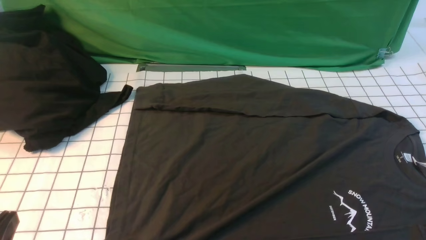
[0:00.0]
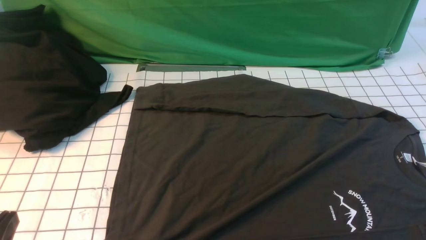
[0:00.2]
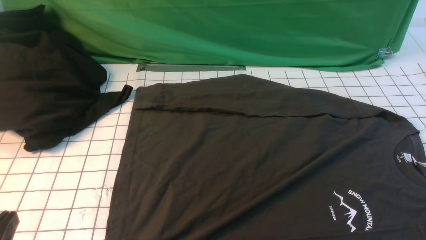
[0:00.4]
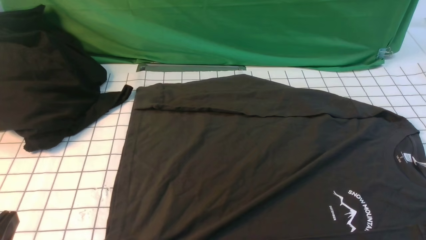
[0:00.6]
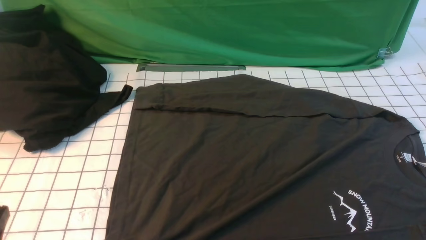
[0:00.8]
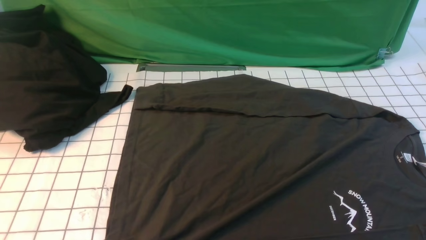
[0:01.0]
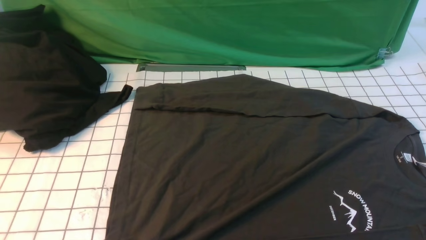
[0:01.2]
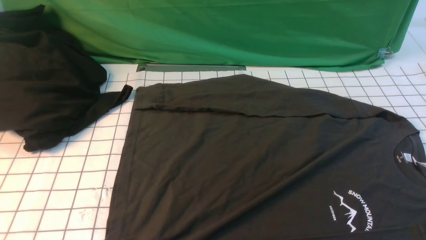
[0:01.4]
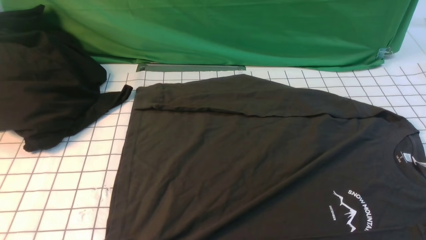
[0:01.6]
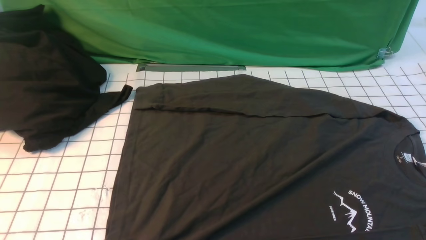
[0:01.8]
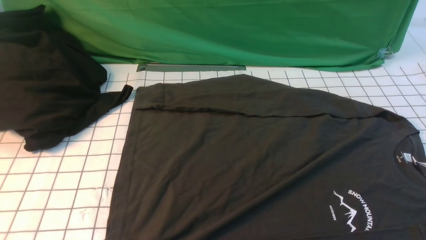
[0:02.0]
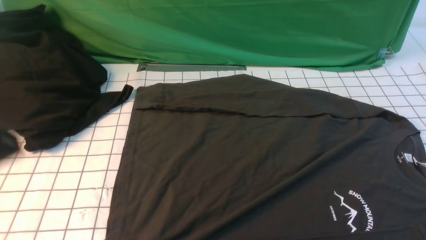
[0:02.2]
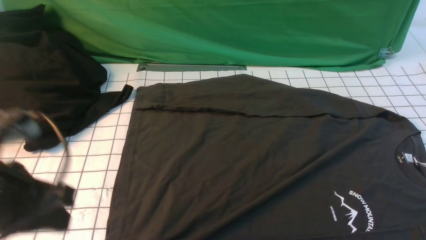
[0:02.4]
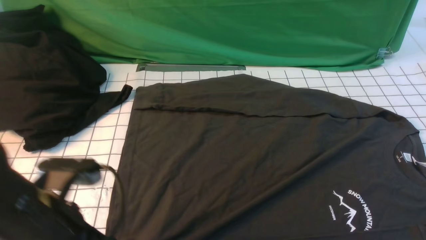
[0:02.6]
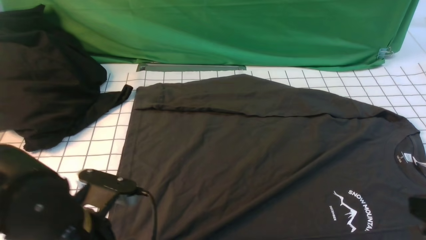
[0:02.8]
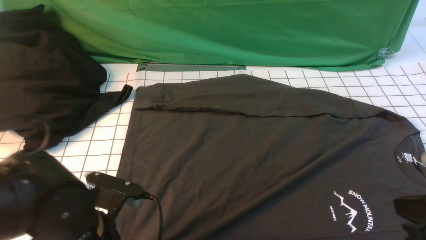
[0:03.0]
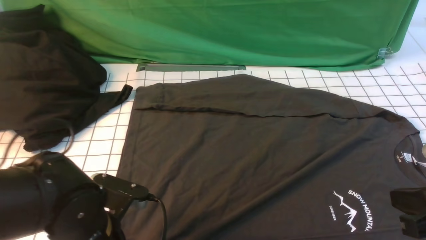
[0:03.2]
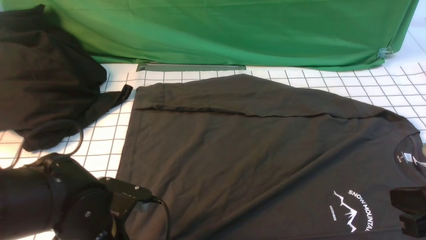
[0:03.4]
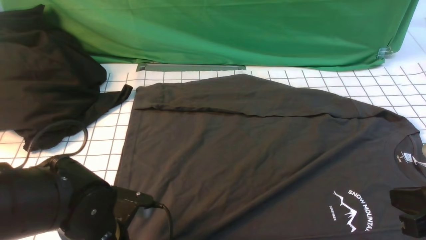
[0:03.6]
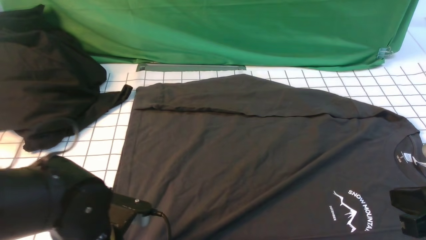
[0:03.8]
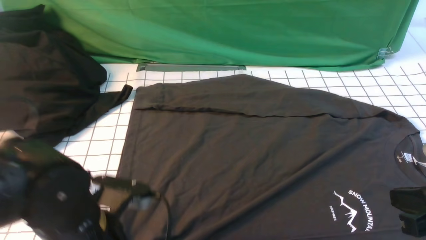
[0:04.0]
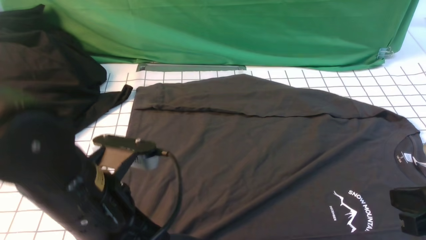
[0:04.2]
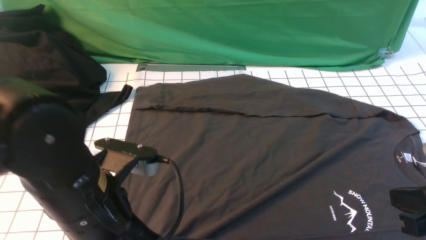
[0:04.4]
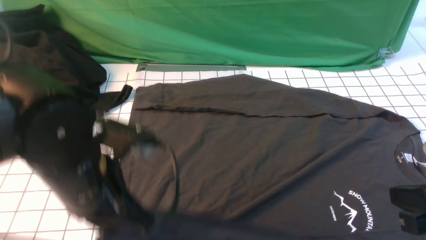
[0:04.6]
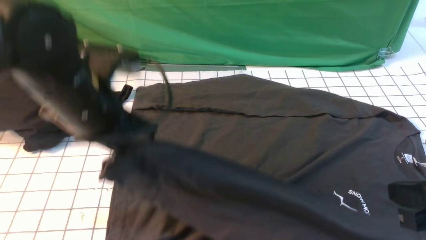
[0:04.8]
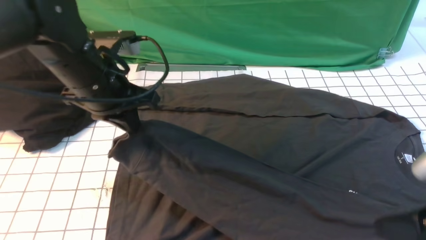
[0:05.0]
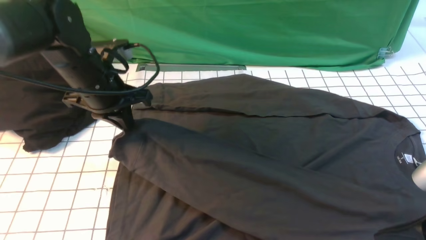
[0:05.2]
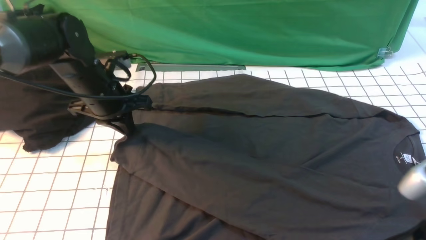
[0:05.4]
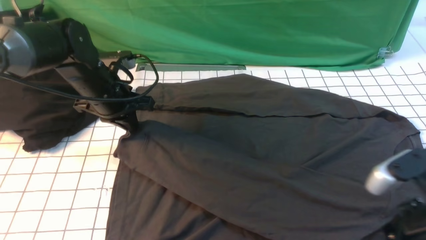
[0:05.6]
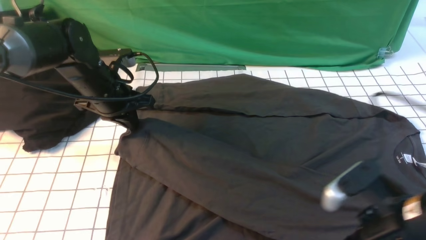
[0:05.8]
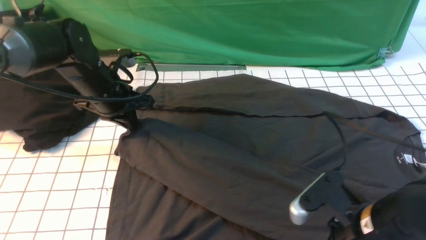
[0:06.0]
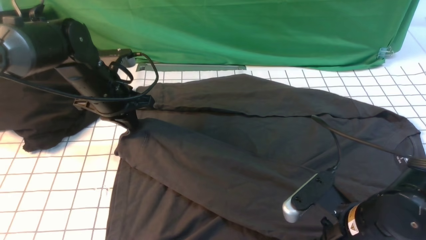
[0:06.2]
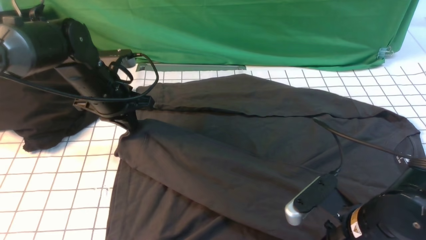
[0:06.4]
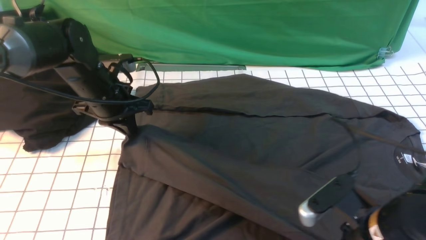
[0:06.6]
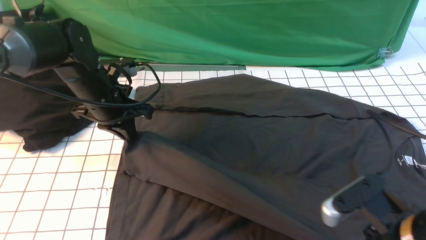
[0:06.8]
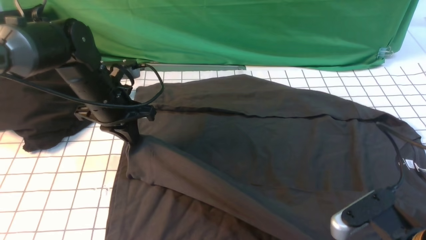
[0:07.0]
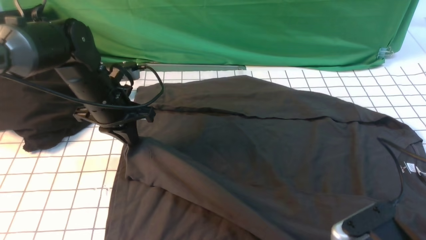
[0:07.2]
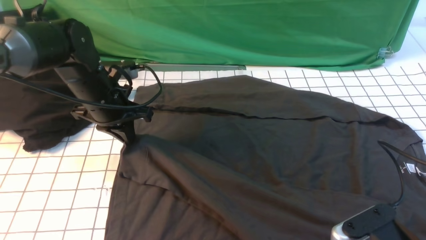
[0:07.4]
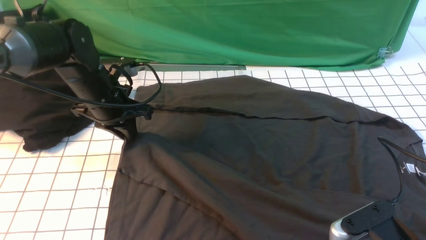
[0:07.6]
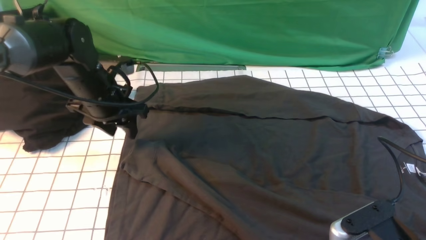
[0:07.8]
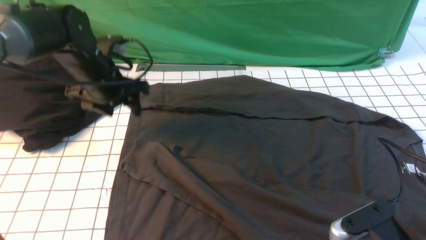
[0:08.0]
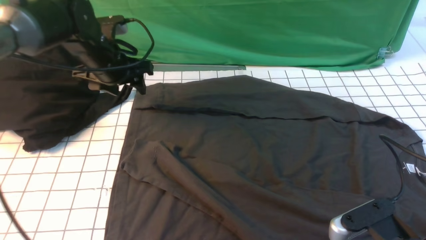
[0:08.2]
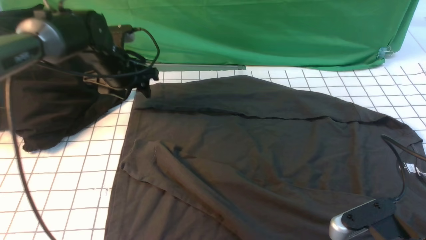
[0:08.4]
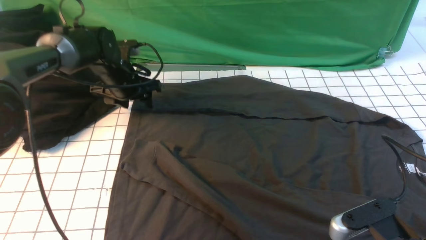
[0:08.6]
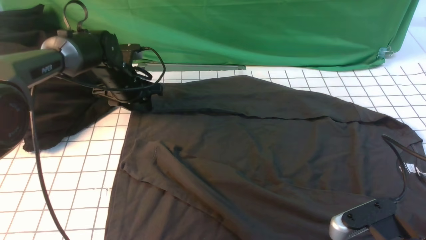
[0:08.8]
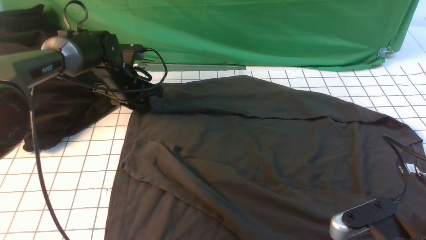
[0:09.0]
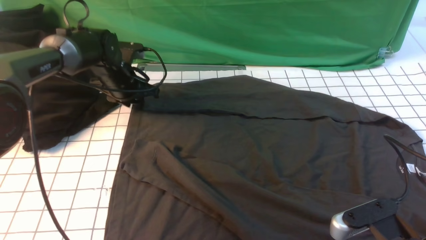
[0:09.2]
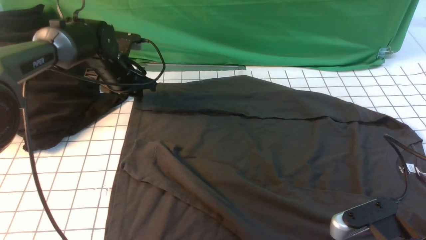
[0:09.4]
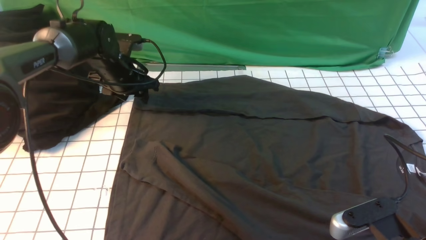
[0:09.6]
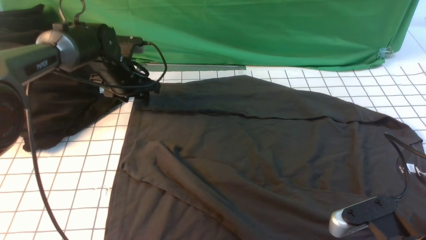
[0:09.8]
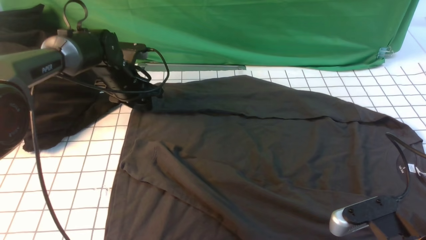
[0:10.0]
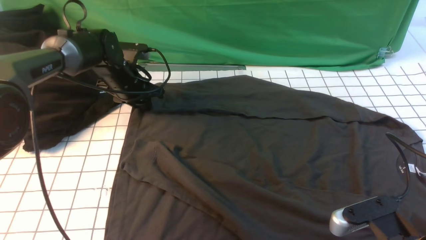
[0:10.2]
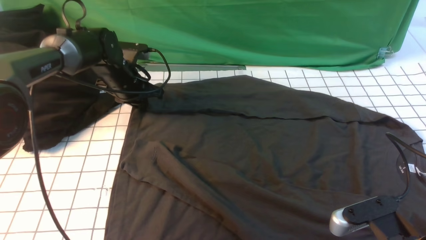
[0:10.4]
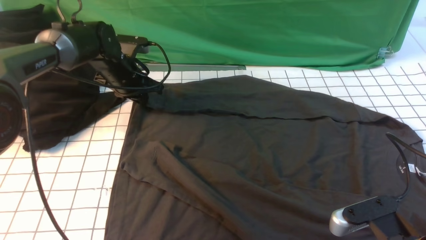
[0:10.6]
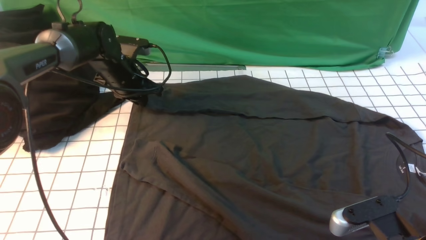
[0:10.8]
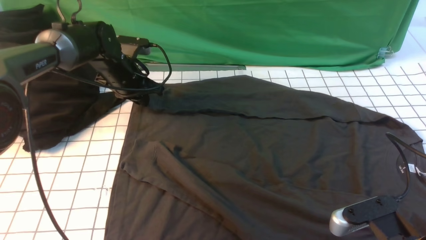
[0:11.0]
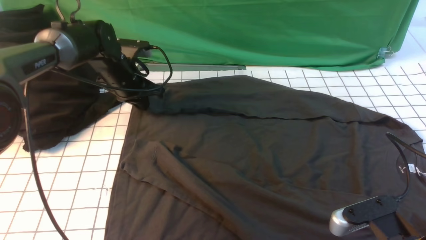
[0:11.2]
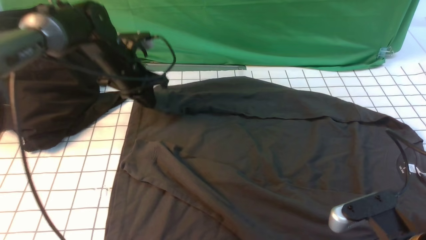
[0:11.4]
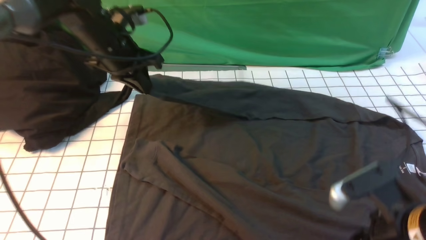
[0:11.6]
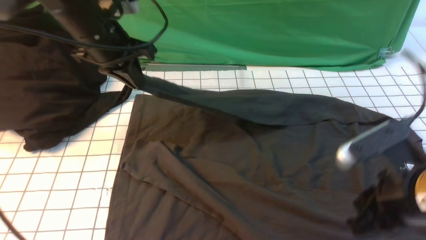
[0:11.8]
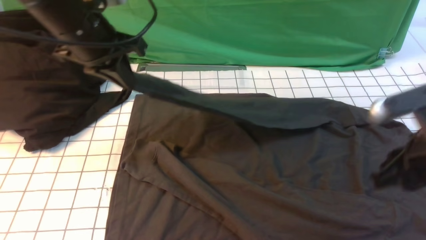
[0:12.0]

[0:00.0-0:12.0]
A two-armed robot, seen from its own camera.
Step, 0:00.0 to 0:04.0: use the left arm to clamp the cuff closest to it.
Step, 0:04.2 to 0:07.8: use the left arm to drag and place the cuff at the centered position on the left edge of the fabric.
Step, 0:08.0 to 0:11.2: use the left arm to clamp the cuff farthest from it.
0:01.6 to 0:03.0: The left gripper moves to the right, forward and downward, roughly 20 cm. Meanwhile the right gripper goes about 10 cm upward and forward, and closes up.
0:03.0 to 0:04.4: The left gripper goes some 10 cm upward.
0:04.4 to 0:06.0: The right gripper is displaced to the left and downward by roughly 10 cm, and opens; the left gripper moves forward, some 20 cm.
0:06.0 to 0:07.6: The right gripper moves backward, about 5 cm, and closes, then reopens, while the left gripper opens up.
0:07.6 to 0:09.0: The left gripper travels forward by some 10 cm.
0:09.0 to 0:10.4: The grippers stay close to where they were, moving slightly.
0:10.4 to 0:12.0: The right gripper travels forward and upward by roughly 10 cm. The left gripper shifts some 20 cm upward and backward.

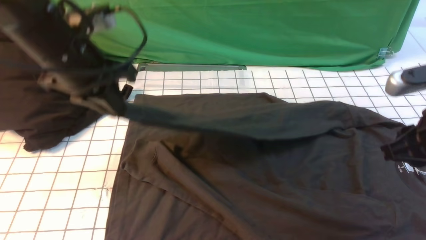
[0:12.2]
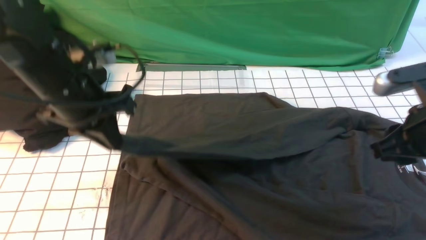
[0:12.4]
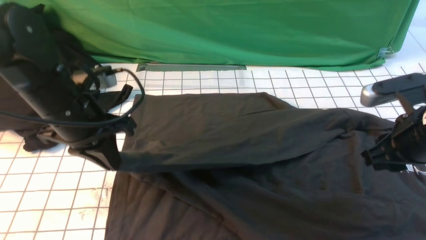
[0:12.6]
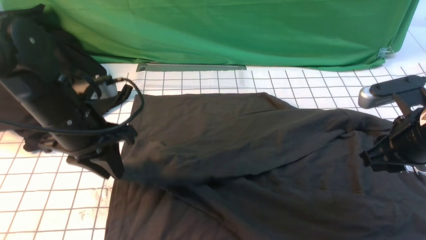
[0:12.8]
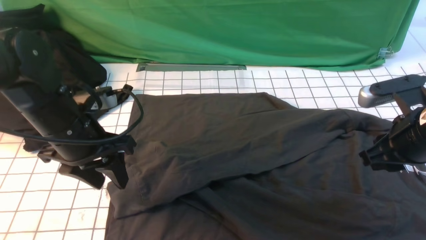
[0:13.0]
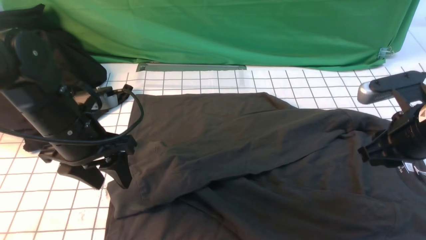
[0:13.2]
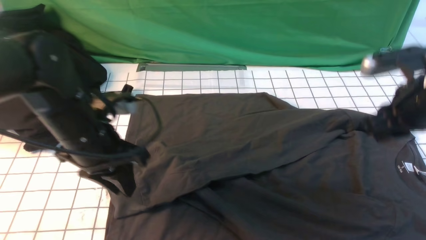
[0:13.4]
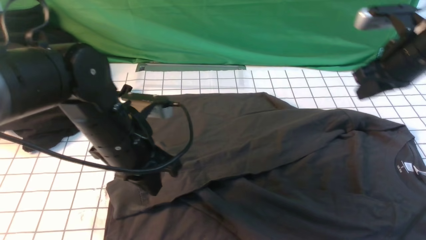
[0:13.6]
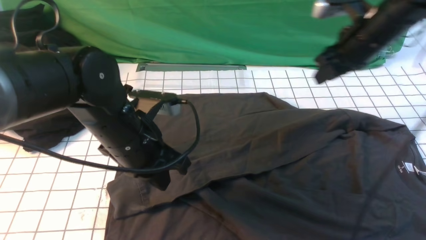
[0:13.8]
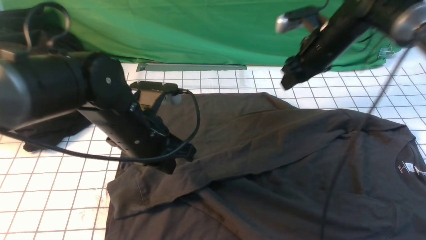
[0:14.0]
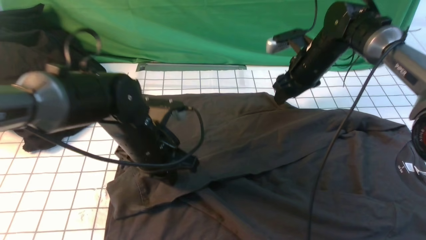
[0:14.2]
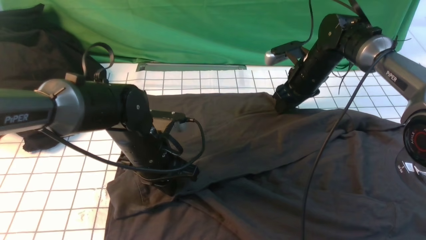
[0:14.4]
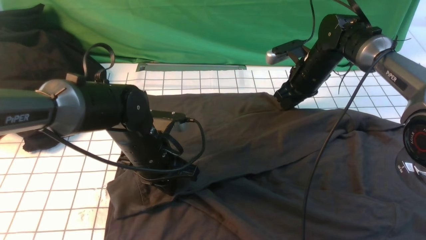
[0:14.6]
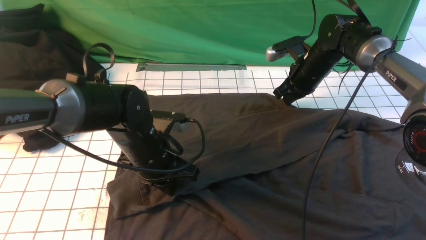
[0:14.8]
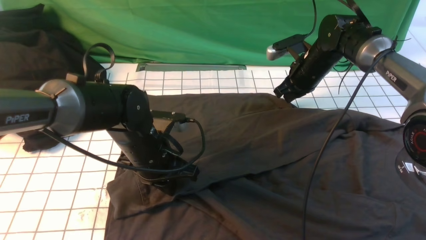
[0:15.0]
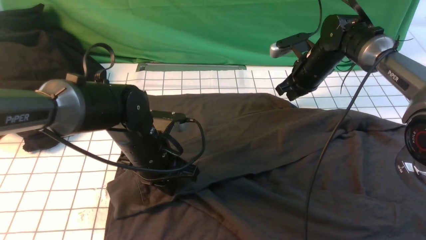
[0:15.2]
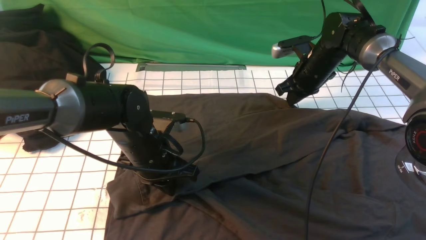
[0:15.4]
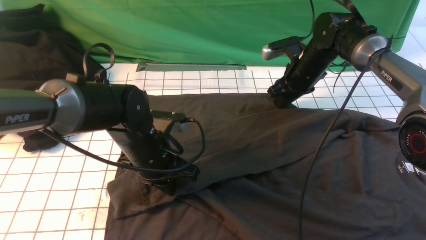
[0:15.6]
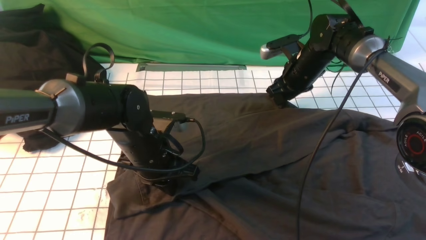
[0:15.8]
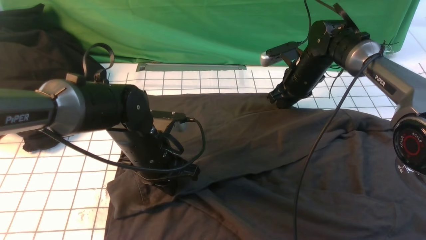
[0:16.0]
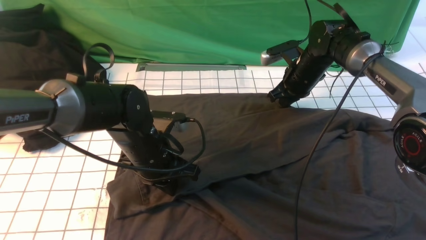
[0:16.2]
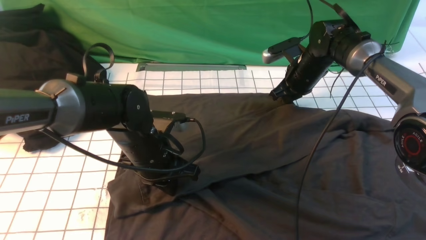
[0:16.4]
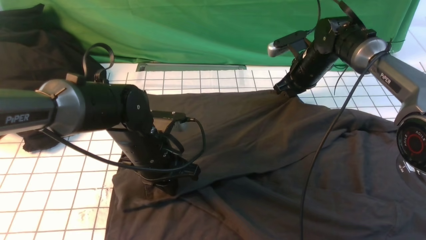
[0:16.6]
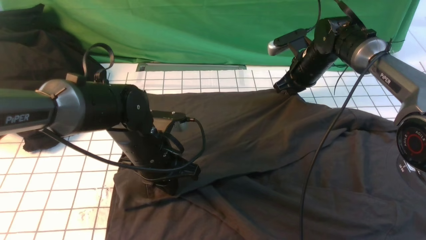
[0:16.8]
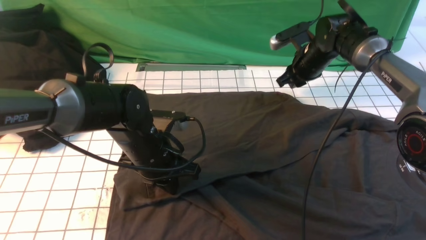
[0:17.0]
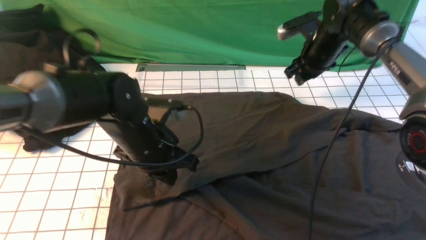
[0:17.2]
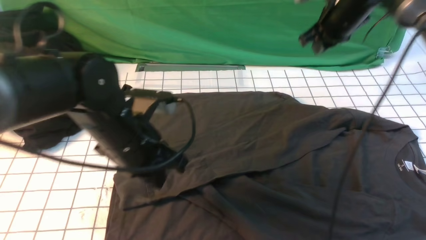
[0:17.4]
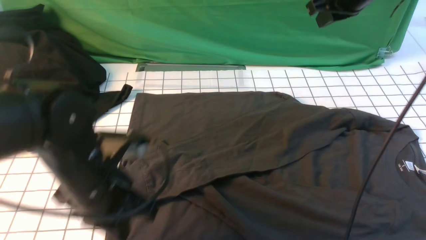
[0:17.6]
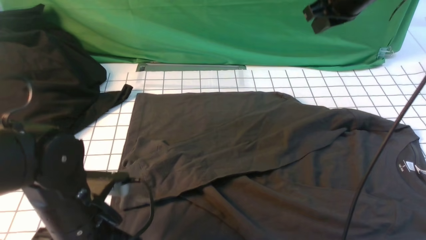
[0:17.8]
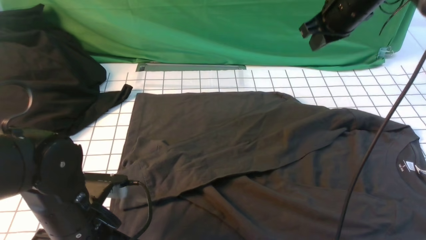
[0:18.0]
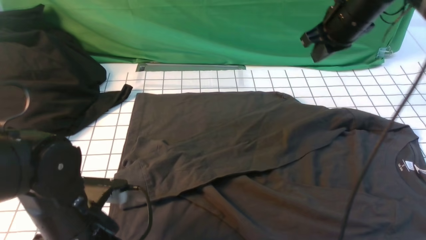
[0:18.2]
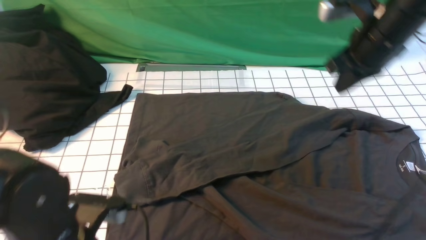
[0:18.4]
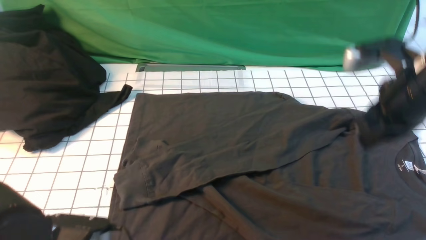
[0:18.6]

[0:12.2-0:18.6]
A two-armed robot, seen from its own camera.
0:12.2 to 0:13.8: The left gripper moves downward and to the right, roughly 10 cm, and opens, then closes once more. The right gripper travels forward by roughly 20 cm.
0:13.8 to 0:15.4: The right gripper shifts some 15 cm downward and forward. Meanwhile the left gripper travels downward by some 5 cm.
0:15.4 to 0:17.0: There are only small adjustments of the grippers.
0:17.0 to 0:18.6: The right gripper travels backward and upward by about 25 cm, and closes, while the left gripper goes roughly 20 cm backward.
